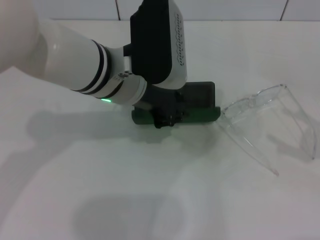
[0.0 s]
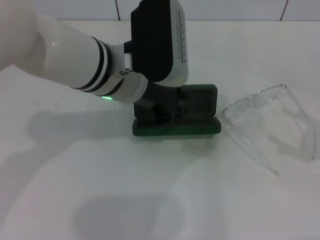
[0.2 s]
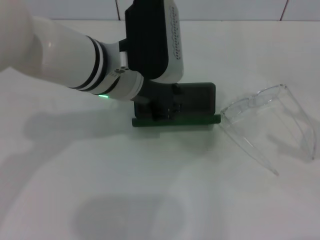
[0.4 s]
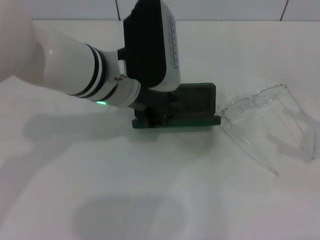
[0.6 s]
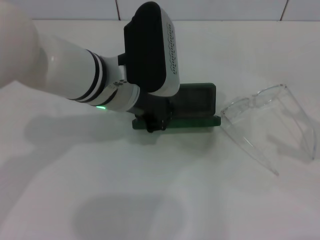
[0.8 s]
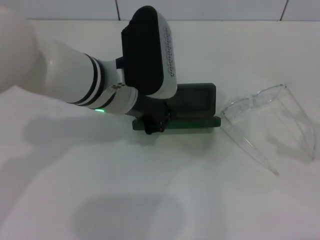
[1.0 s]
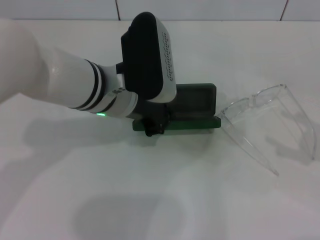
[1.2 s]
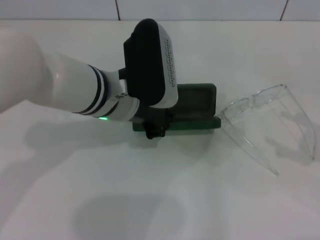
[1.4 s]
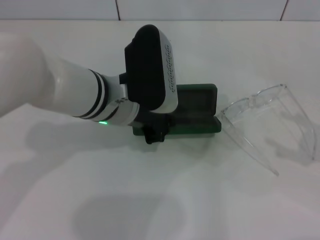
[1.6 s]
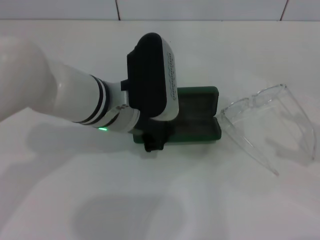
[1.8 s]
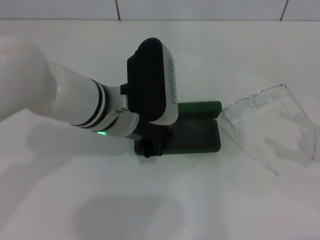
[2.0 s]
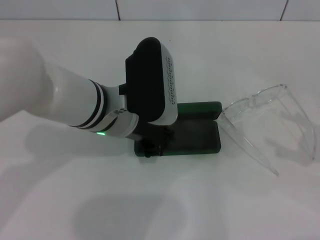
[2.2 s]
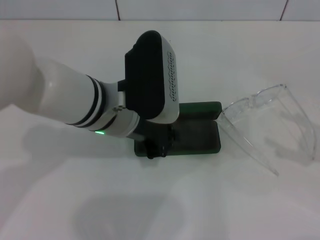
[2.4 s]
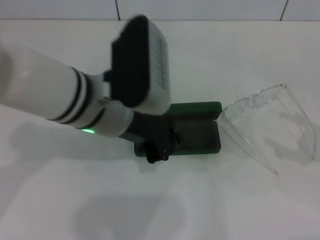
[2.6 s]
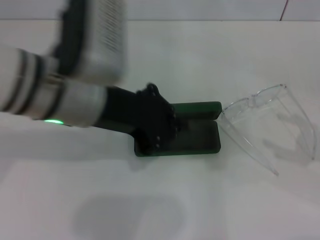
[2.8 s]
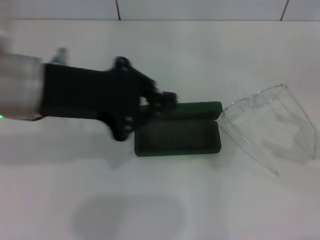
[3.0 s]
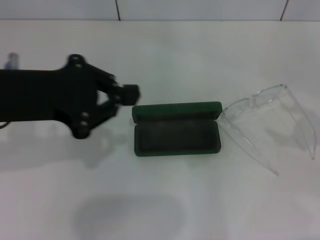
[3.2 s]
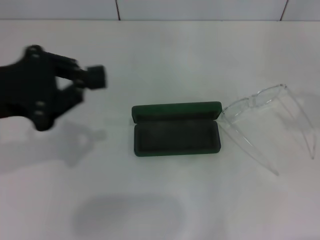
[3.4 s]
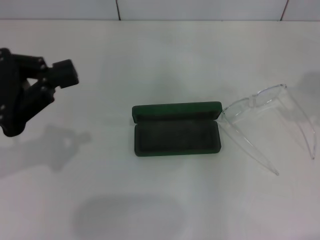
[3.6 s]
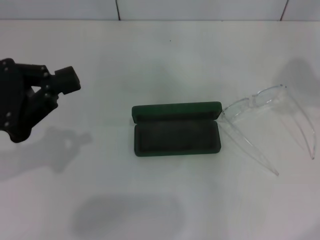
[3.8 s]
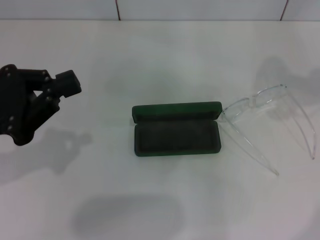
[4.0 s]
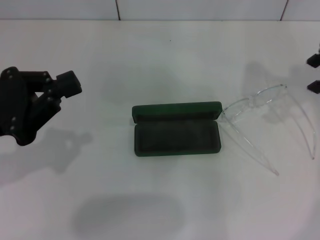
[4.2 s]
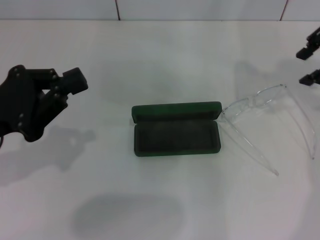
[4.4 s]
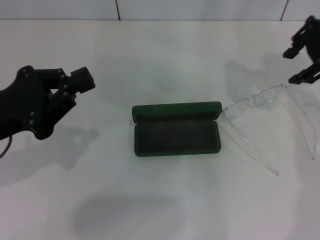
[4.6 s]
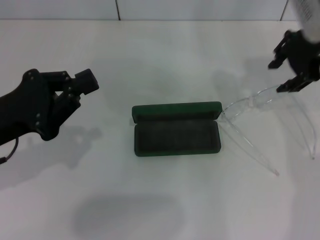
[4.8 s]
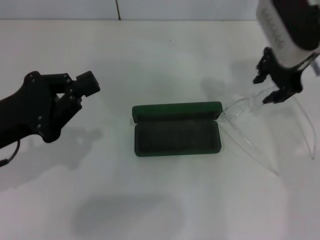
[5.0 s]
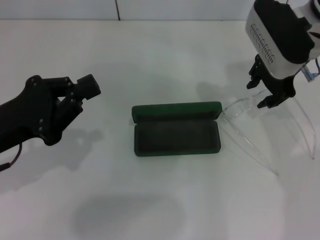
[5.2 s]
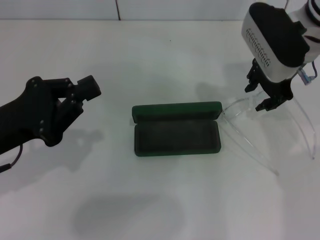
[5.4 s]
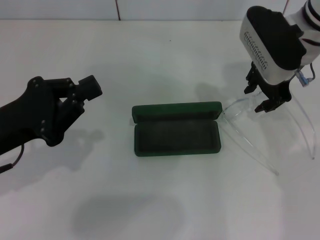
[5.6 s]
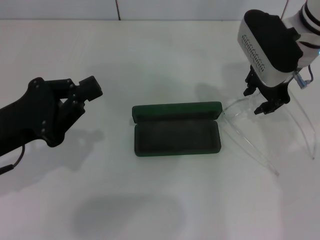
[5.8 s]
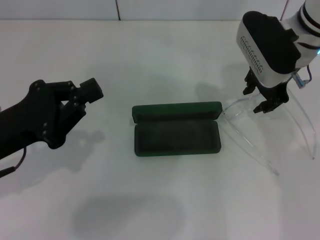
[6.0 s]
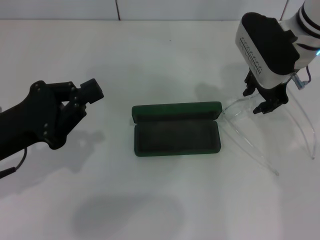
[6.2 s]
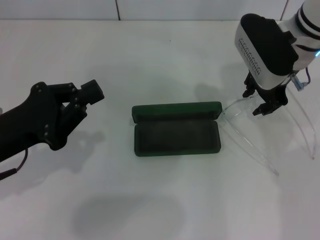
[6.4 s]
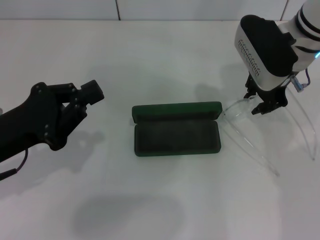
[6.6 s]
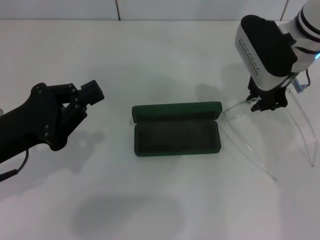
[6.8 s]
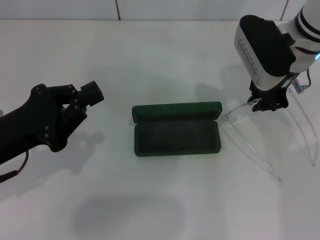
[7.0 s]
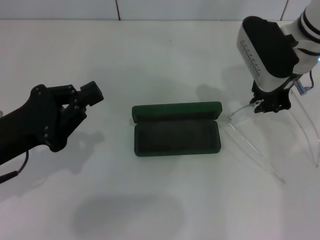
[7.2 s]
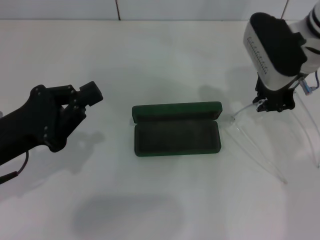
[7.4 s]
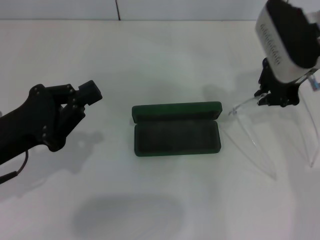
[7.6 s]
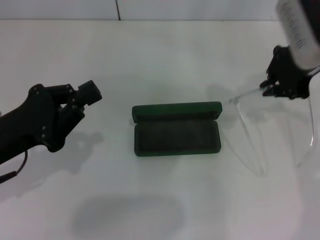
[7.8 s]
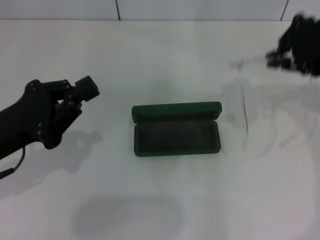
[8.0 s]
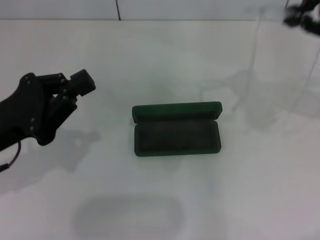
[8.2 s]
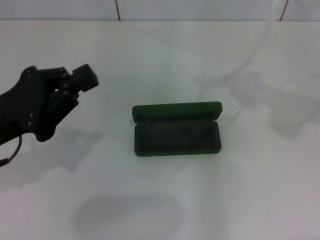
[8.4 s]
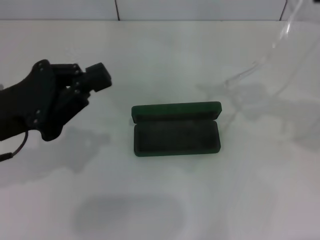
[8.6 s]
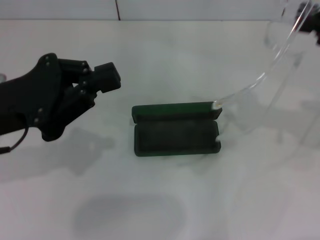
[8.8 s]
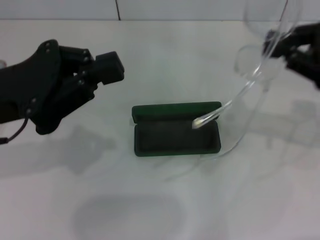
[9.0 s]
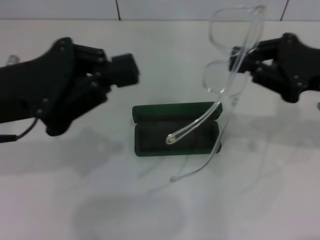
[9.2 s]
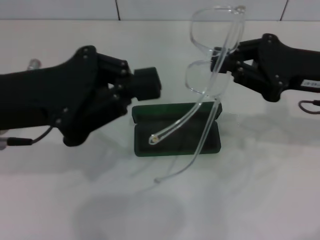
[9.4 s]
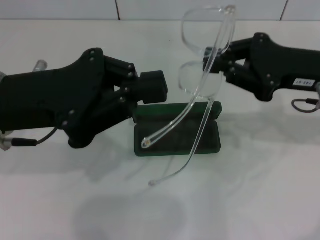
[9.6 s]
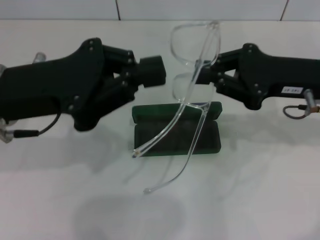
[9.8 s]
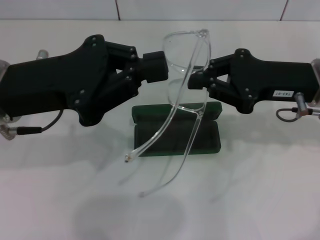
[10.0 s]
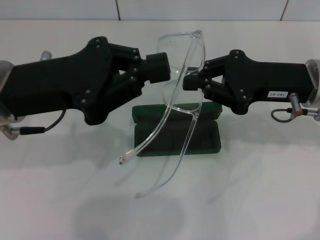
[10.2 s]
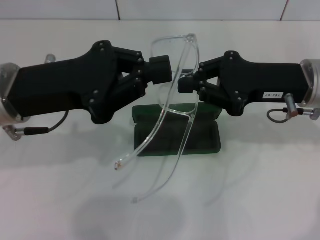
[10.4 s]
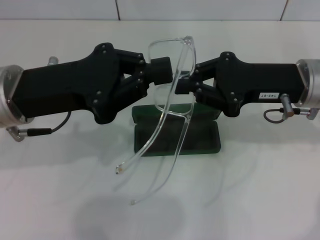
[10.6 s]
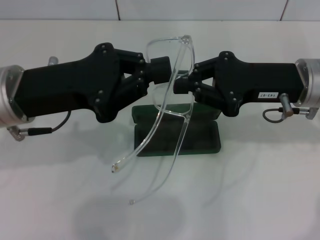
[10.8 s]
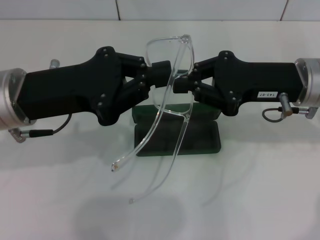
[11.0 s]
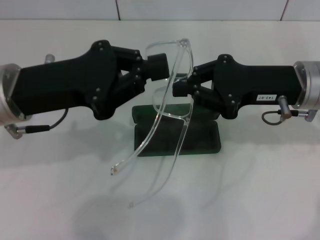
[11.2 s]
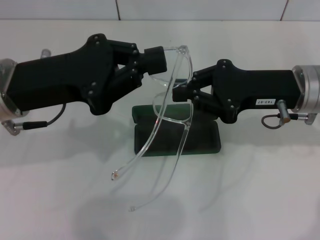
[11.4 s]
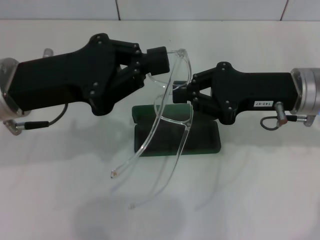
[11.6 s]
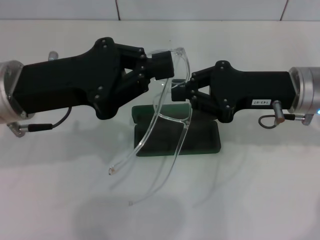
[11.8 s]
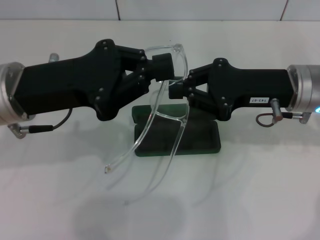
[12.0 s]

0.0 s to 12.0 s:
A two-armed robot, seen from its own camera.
Step, 0.0 to 2.8 s: Place the glasses case in the center of the table with your left hand.
Step, 3.0 to 7.0 s: Grab the eyeglass frame with your right hand.
0.0 to 1.6 s: There are only small adjustments of the grippers.
1.6 to 3.0 s: The left gripper moves upward, to the left and backward, approximately 15 cm.
3.0 to 4.4 s: The right gripper is displaced forward, to the left and upward by approximately 20 cm; the left gripper goes some 15 cm to the left and downward.
4.4 to 6.0 s: The right gripper is displaced downward and to the left by roughly 15 cm.
6.0 to 7.6 s: The right gripper closes.
7.6 to 9.0 s: The right gripper travels to the right and backward by some 15 cm, while the left gripper shifts about 10 cm upward.
9.0 to 10.4 s: The right gripper is displaced to the left by about 10 cm.
10.4 to 12.0 s: The grippers make only small movements.

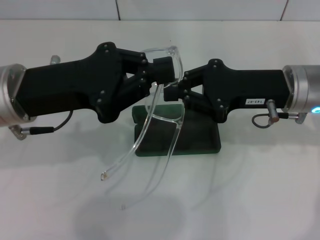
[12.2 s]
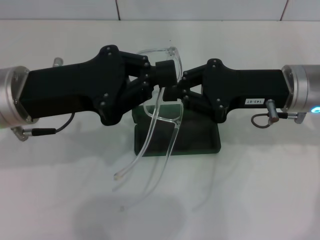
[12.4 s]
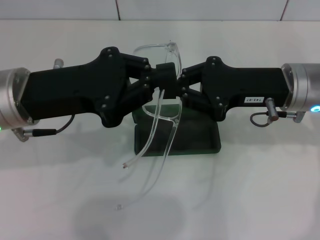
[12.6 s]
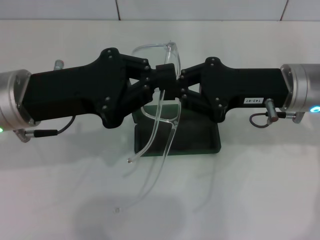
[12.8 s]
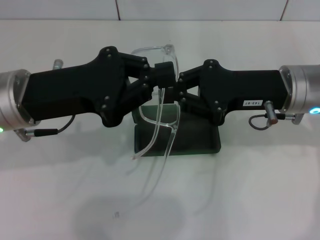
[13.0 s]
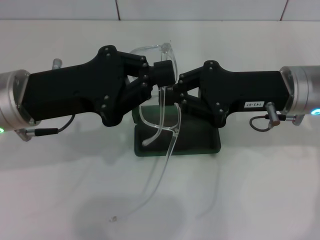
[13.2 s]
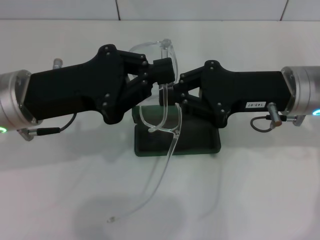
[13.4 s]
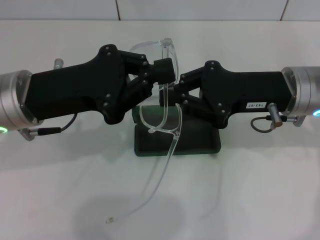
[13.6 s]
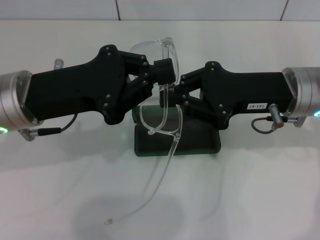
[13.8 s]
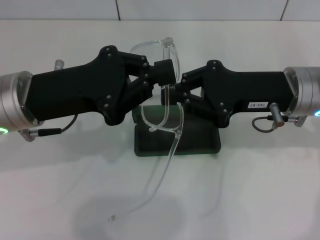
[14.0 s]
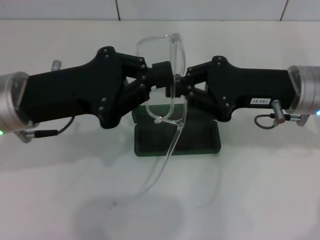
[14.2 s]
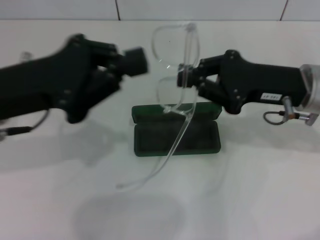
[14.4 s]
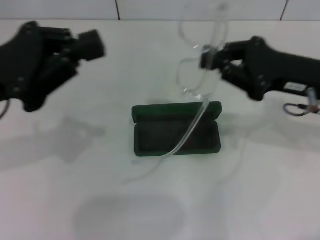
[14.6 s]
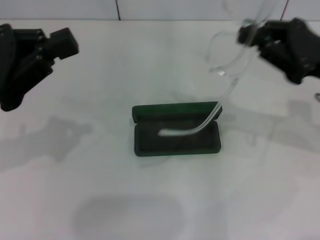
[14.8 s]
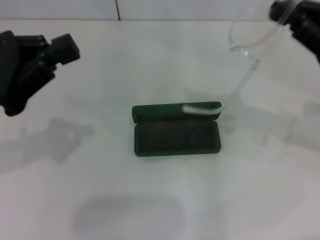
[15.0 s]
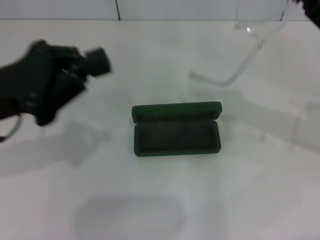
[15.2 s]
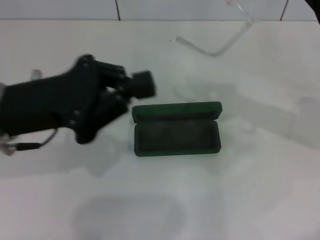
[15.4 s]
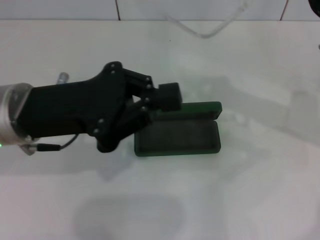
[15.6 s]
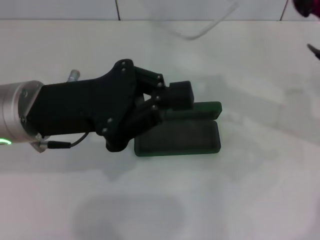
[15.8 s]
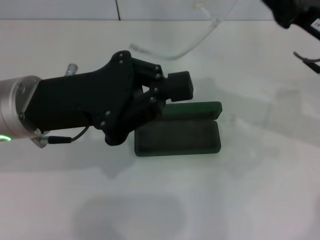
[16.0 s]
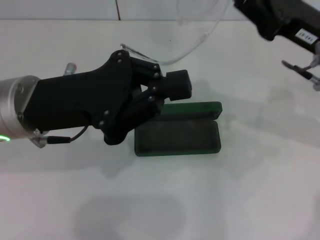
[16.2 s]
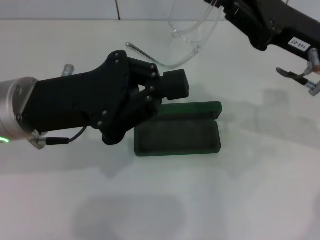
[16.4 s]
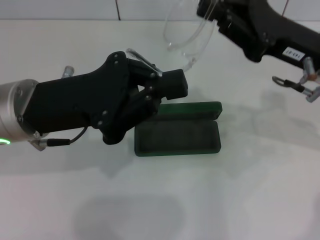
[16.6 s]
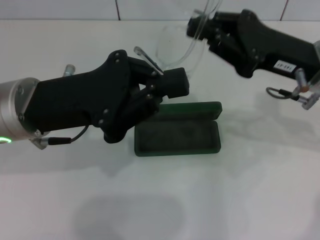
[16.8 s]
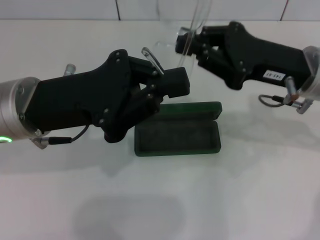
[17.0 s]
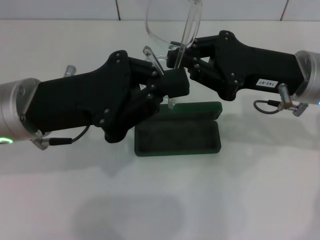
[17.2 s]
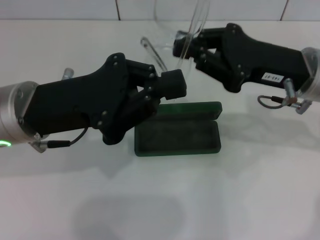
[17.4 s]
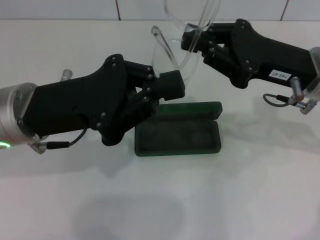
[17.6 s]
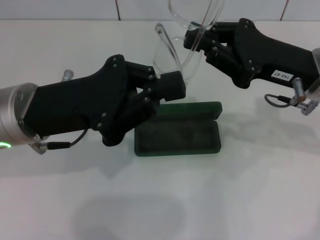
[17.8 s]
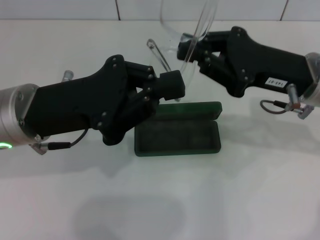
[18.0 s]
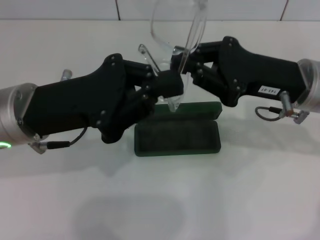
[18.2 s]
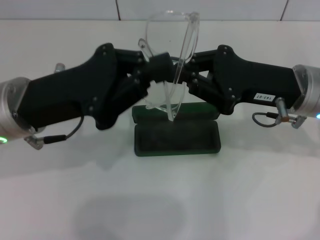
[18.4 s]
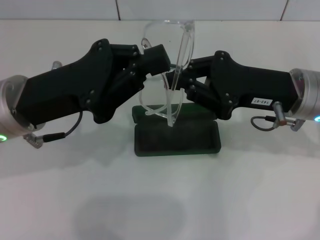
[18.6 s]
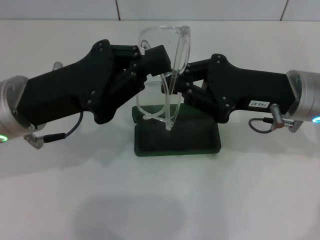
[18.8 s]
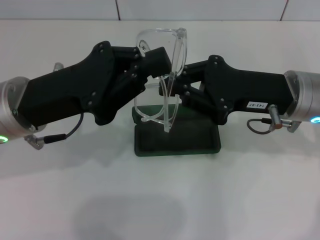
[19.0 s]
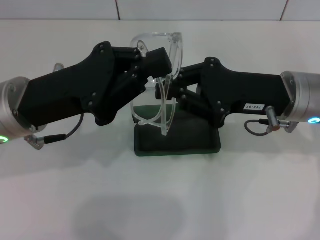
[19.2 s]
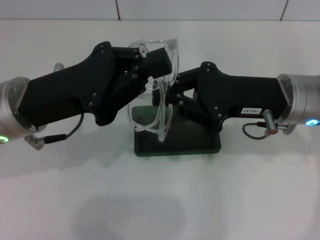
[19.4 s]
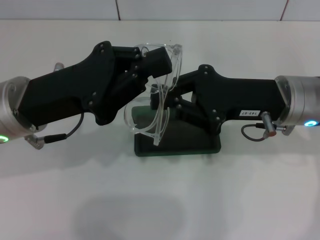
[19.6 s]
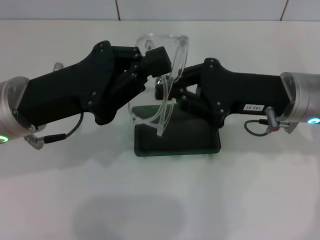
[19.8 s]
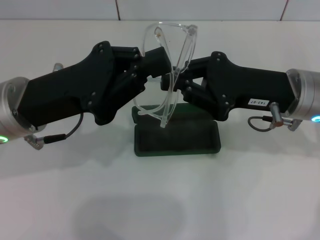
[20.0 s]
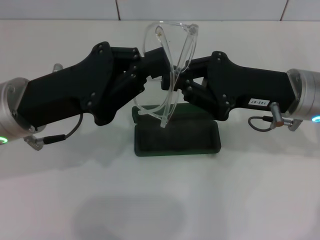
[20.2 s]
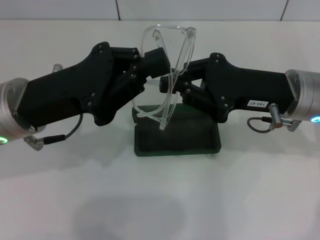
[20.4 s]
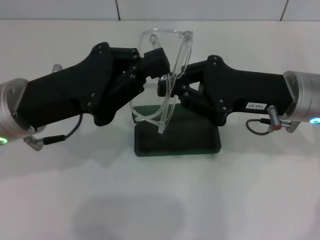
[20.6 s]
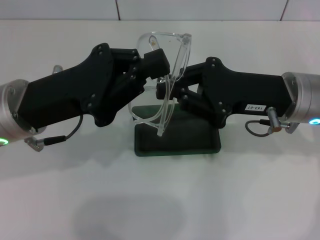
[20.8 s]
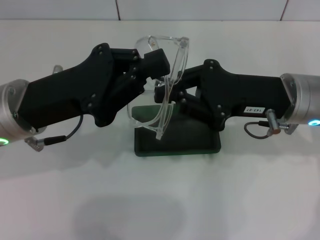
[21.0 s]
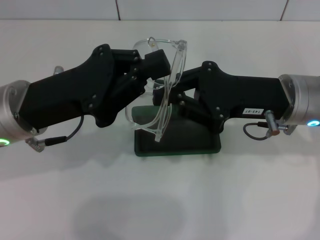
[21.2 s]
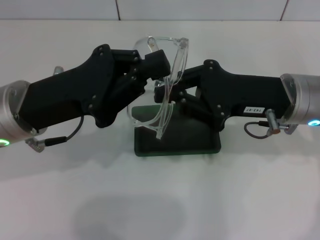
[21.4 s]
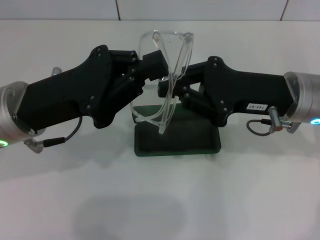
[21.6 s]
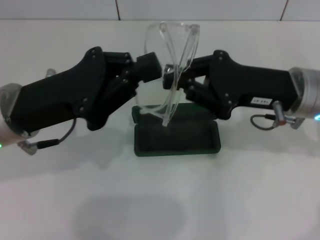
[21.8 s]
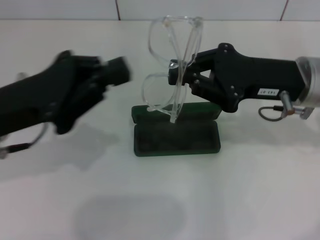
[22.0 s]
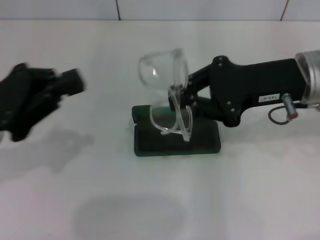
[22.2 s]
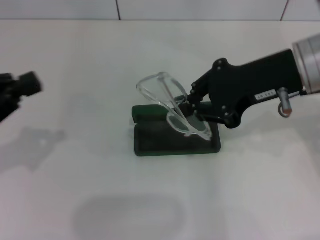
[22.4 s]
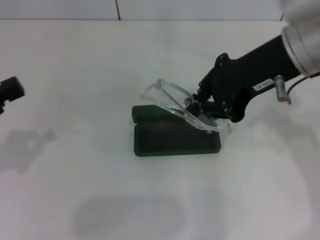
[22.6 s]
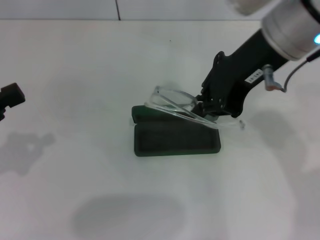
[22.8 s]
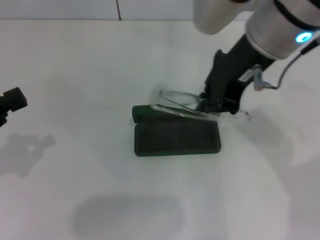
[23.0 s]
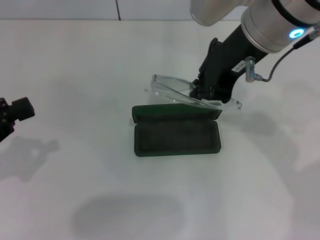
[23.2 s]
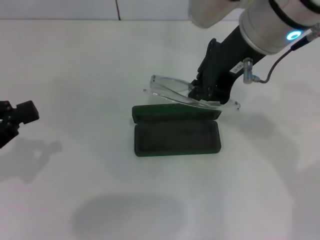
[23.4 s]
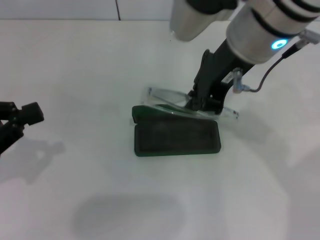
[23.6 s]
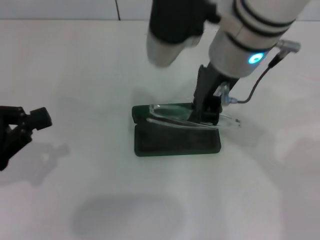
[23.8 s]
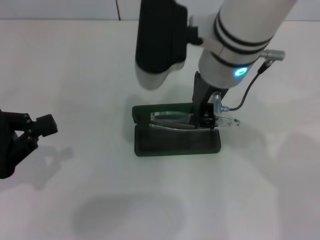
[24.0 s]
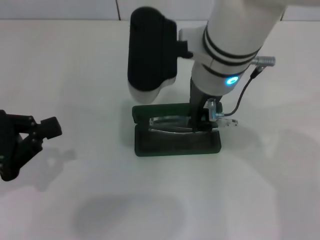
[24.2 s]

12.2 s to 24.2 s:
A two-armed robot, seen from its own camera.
Step, 12.2 to 21.6 s: Fold the frame with your left hand.
12.2 to 13.8 s: The two grippers keep their place.
13.8 to 15.2 s: The right gripper travels to the right by roughly 10 cm. The left gripper is displaced to the left by about 5 cm.
15.2 to 16.6 s: The left gripper travels to the right by approximately 5 cm, while the right gripper is displaced to the left by roughly 5 cm.
16.6 to 18.2 s: The grippers make only small movements.
19.8 to 21.2 s: Neither gripper changes place.
21.2 to 22.6 s: The left gripper travels to the left by roughly 15 cm. Meanwhile the right gripper is displaced upward by roughly 10 cm.
22.6 to 24.2 s: The right gripper travels to the left by roughly 10 cm.
